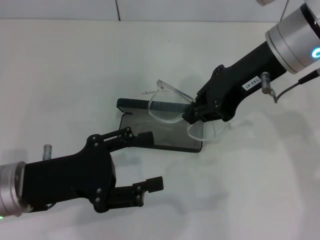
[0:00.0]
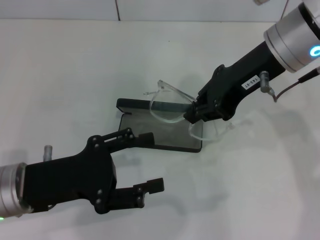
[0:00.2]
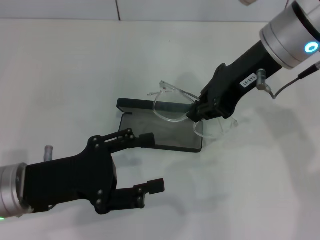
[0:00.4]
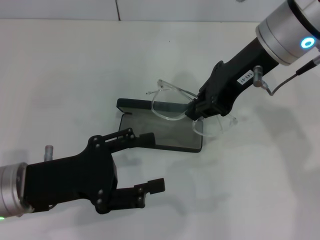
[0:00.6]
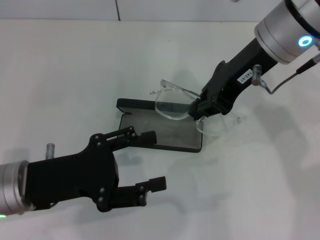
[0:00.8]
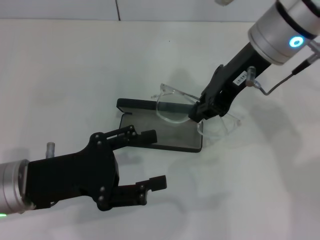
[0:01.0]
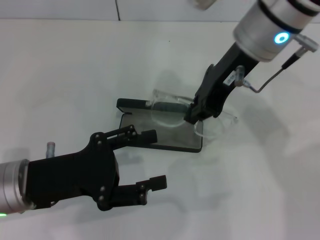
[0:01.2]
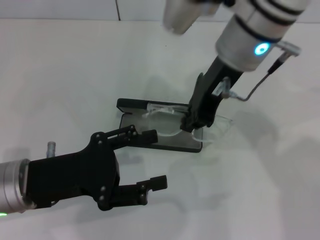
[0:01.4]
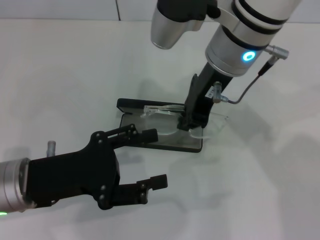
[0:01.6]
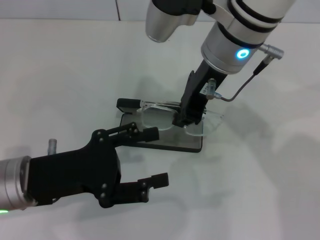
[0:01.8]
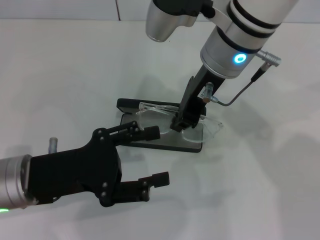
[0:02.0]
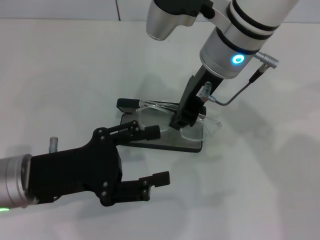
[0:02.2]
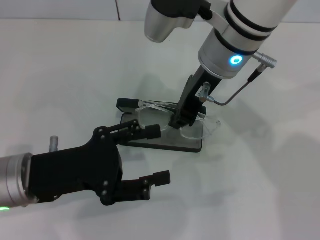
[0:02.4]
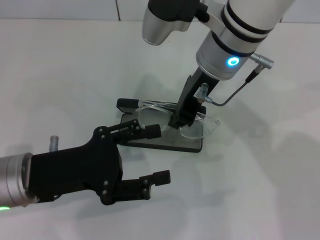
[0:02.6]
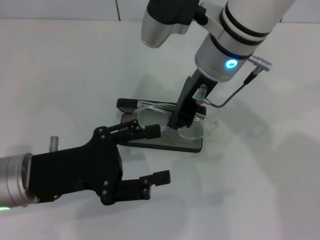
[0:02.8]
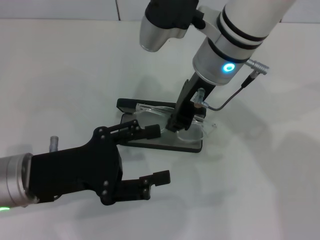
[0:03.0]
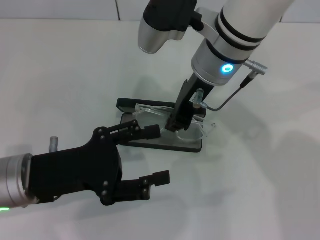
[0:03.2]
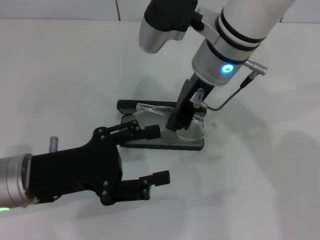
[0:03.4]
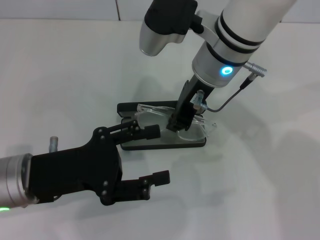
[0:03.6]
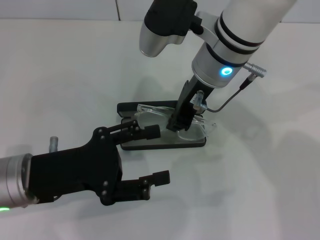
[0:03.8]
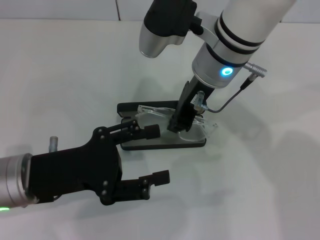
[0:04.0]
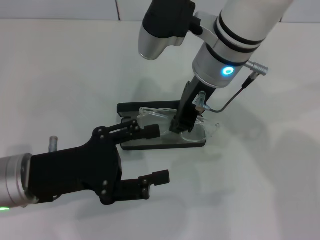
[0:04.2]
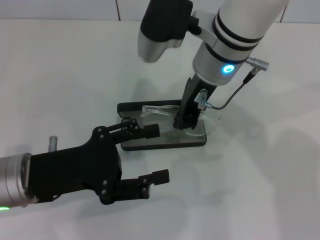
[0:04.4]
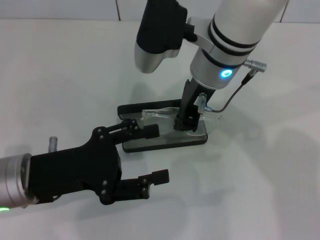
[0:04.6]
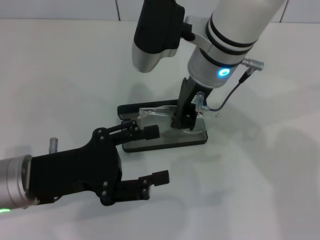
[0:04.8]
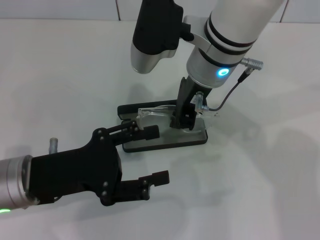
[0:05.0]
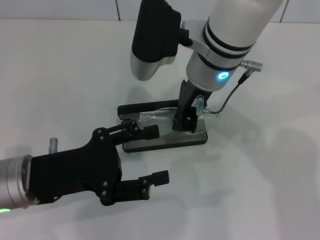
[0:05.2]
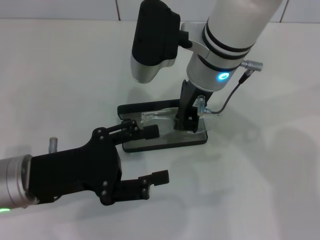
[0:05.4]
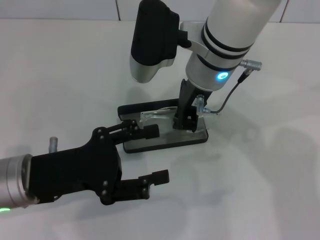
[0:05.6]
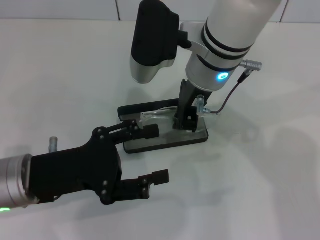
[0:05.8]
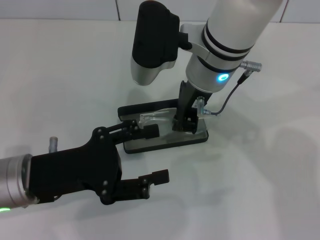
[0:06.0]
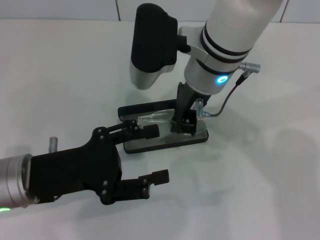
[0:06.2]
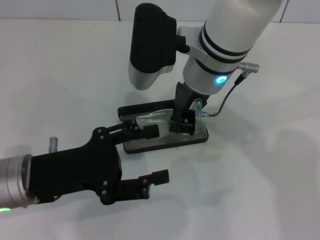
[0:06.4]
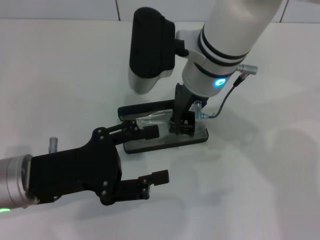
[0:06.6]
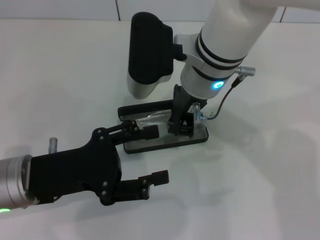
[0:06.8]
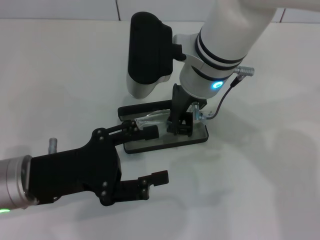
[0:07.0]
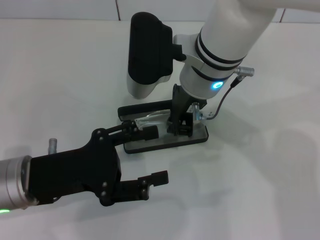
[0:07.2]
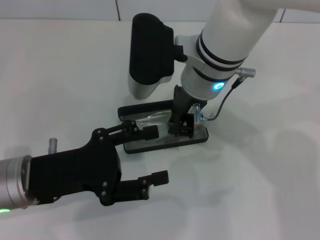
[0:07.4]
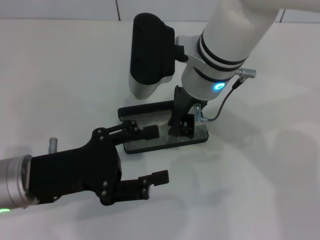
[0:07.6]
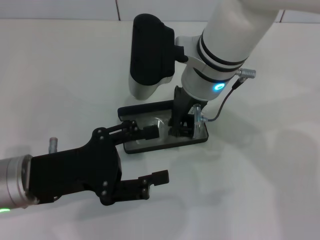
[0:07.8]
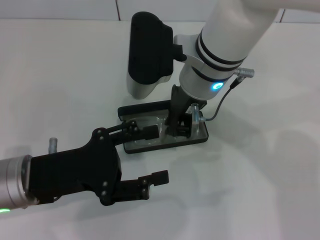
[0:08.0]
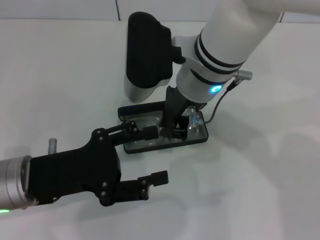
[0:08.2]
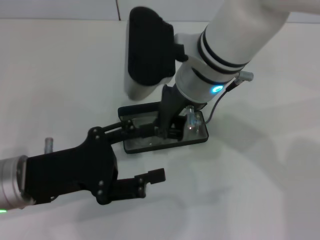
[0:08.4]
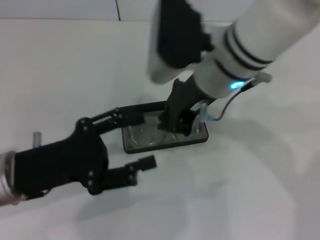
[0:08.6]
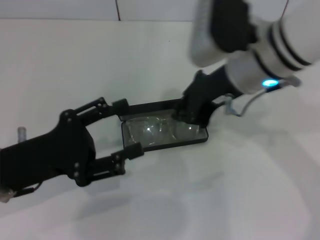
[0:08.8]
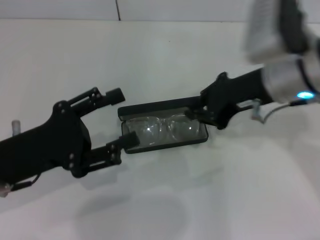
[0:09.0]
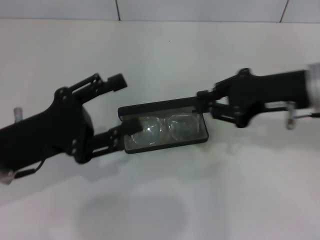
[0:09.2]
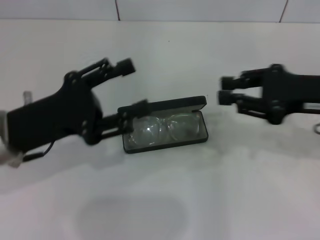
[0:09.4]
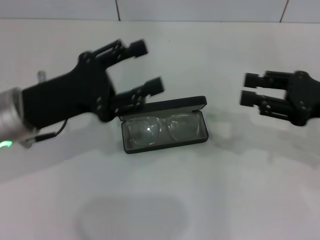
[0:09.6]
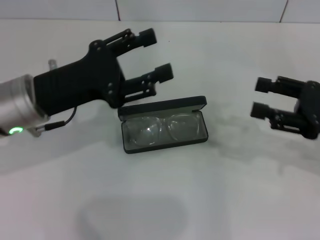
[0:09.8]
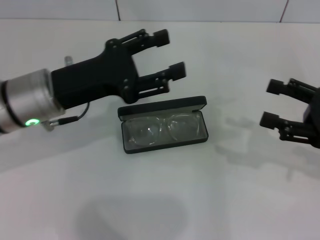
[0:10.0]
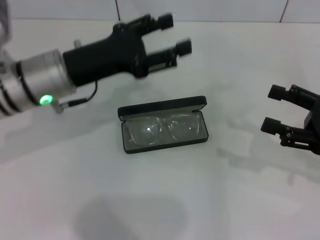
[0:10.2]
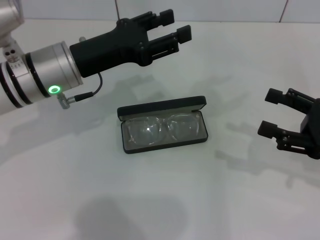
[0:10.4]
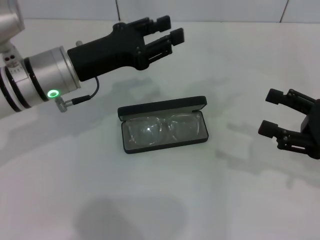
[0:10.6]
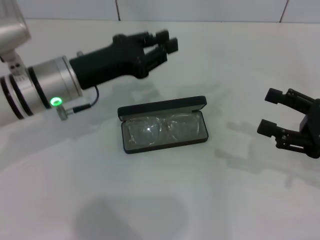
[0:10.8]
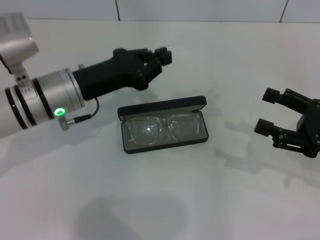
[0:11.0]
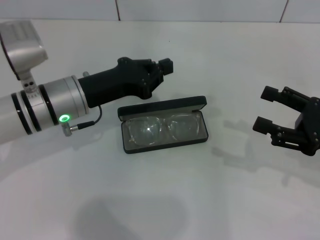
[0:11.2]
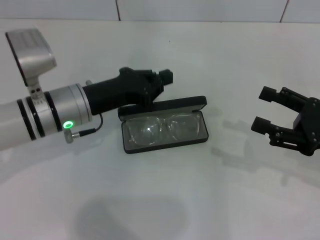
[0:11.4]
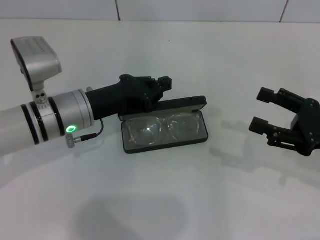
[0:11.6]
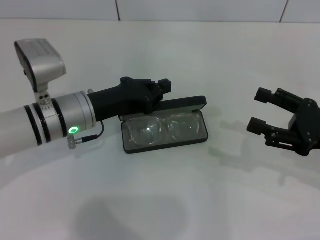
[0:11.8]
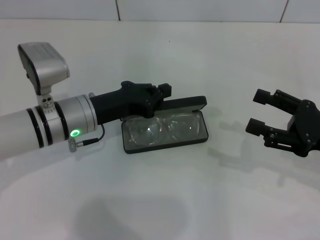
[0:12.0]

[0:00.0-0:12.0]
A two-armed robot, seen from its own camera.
Step, 0:00.0 to 0:08.0: Put the glasses into the case with your right hand.
0:00.0 to 0:01.6: The right gripper shifts about 10 cm to the left.
0:01.6 to 0:07.6: The grippers move only a little.
0:07.6 to 0:09.0: The right gripper moves to the right, approximately 10 cm.
0:09.0 to 0:10.4: The left gripper goes approximately 15 cm forward and to the right; the right gripper heads to the right, downward and backward, covering roughly 20 cm, and opens its fingers.
0:10.4 to 0:12.0: The left gripper travels downward by about 5 cm, and closes its fingers.

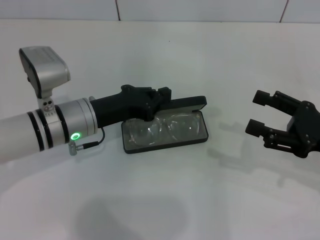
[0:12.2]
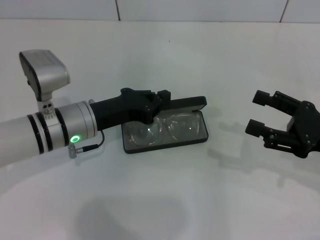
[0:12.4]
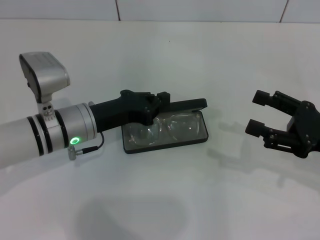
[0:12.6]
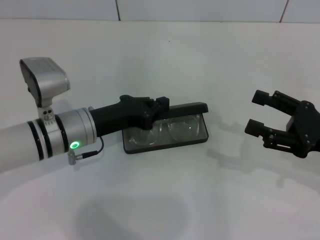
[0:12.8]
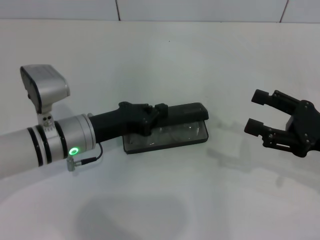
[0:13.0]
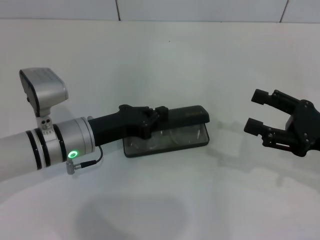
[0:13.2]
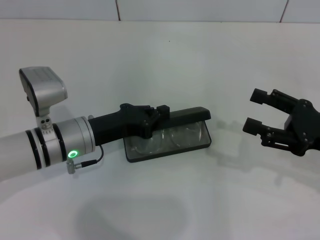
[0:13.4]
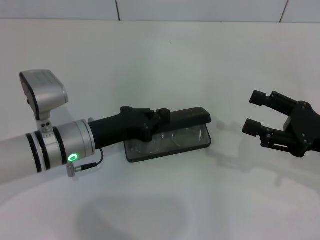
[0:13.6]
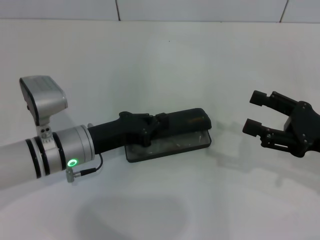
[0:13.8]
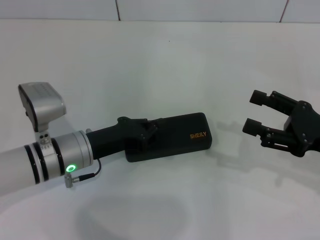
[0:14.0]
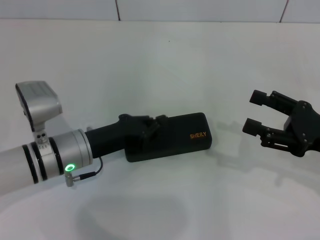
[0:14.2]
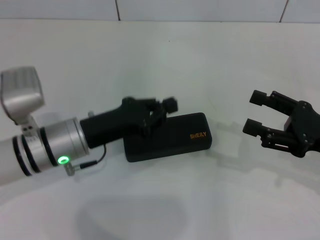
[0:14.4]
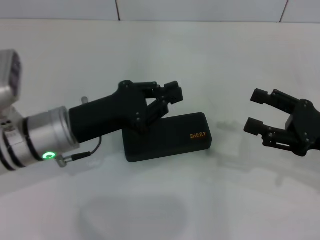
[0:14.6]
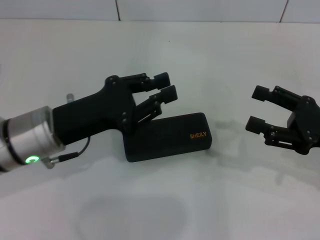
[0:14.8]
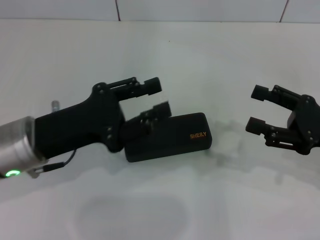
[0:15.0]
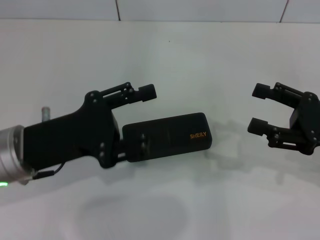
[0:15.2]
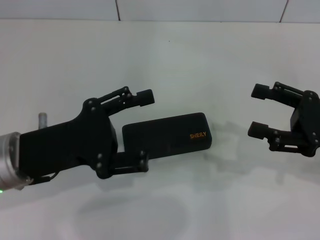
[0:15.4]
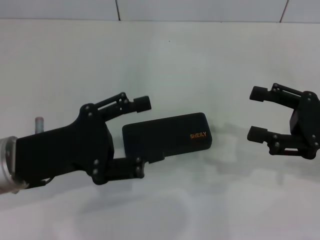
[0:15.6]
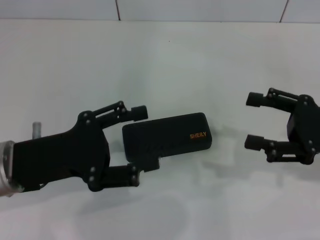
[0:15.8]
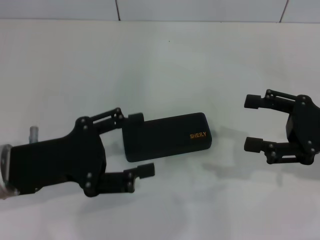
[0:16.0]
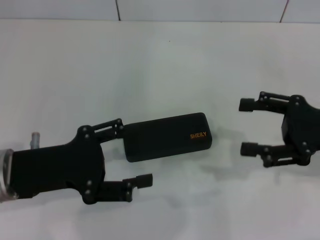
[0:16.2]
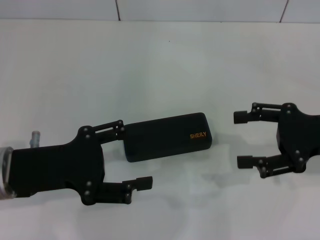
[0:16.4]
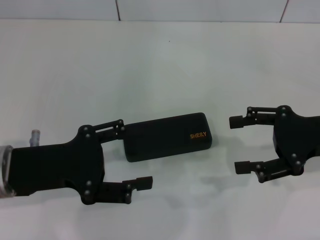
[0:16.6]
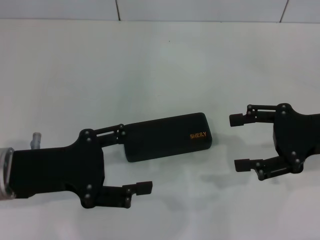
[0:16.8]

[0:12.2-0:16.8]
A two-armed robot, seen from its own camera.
0:12.2 to 0:13.8: The grippers stay close to where they were, moving slightly.
0:13.8 to 0:15.2: The left gripper shifts roughly 10 cm upward and backward, and opens.
0:15.2 to 0:16.8: The left gripper opens up.
